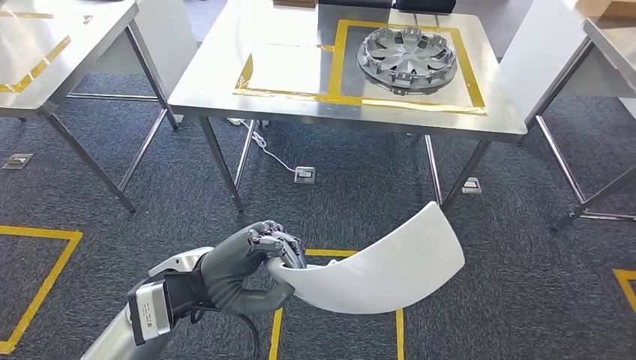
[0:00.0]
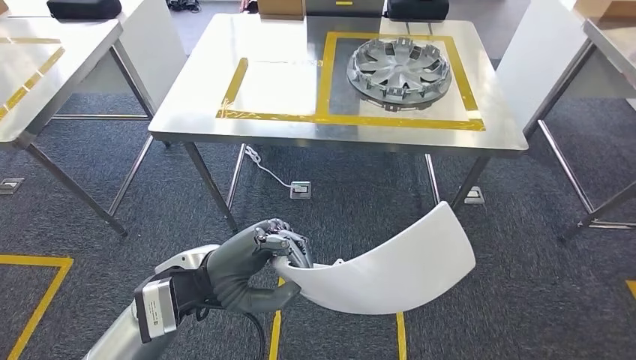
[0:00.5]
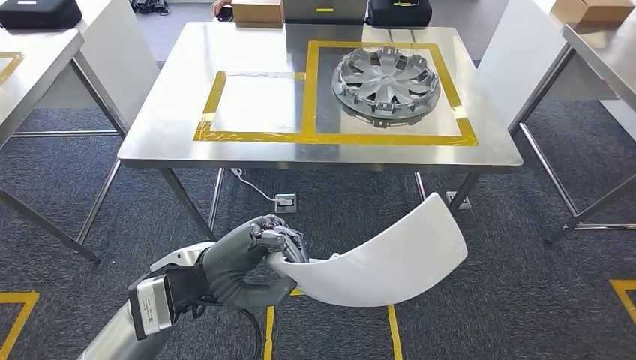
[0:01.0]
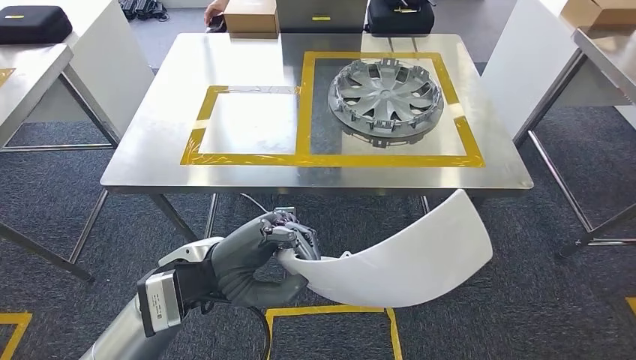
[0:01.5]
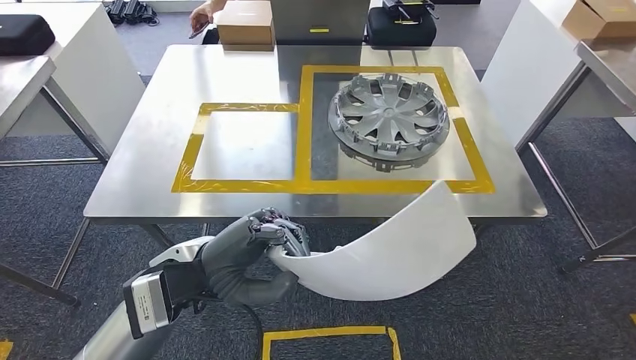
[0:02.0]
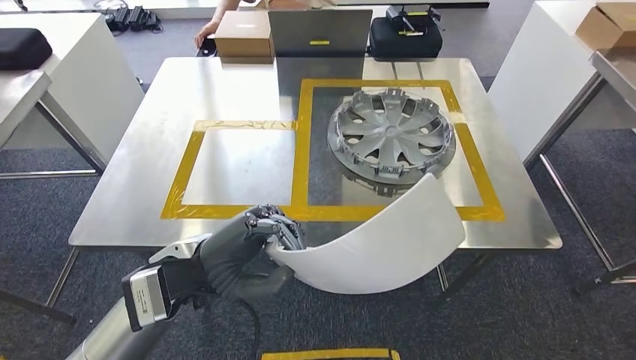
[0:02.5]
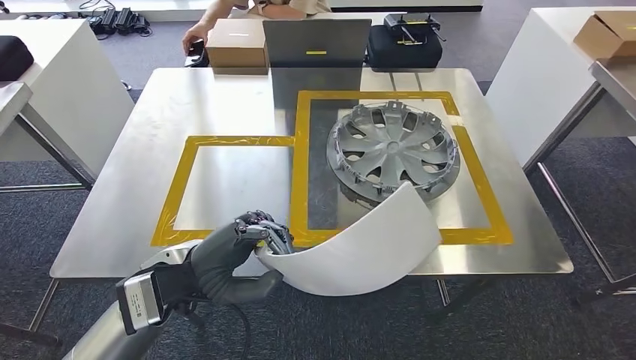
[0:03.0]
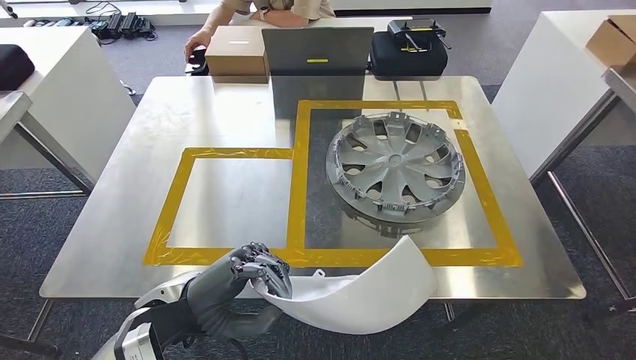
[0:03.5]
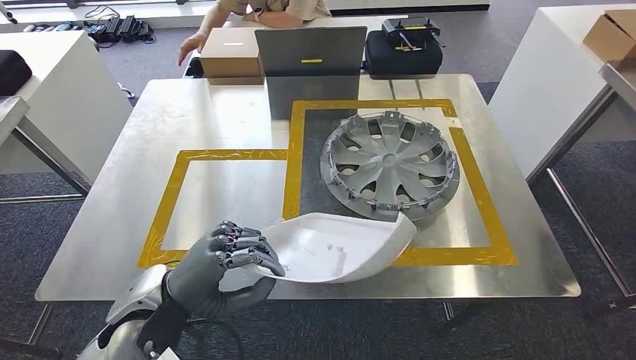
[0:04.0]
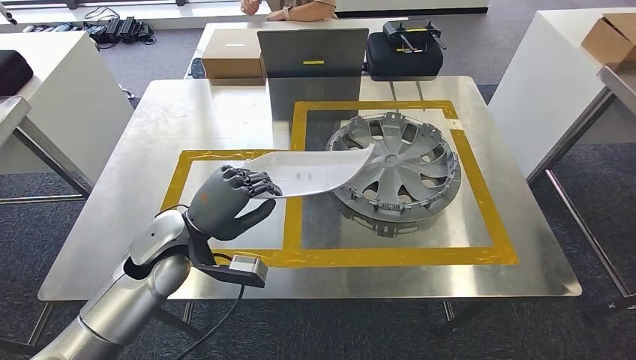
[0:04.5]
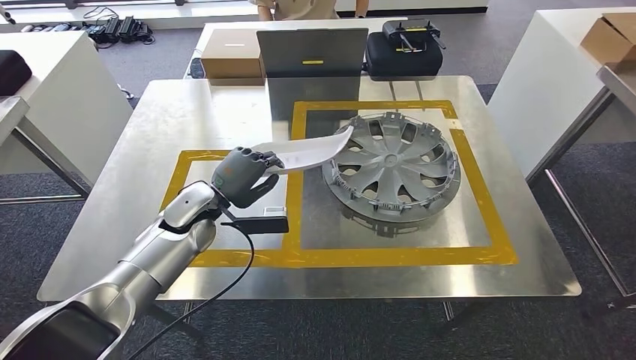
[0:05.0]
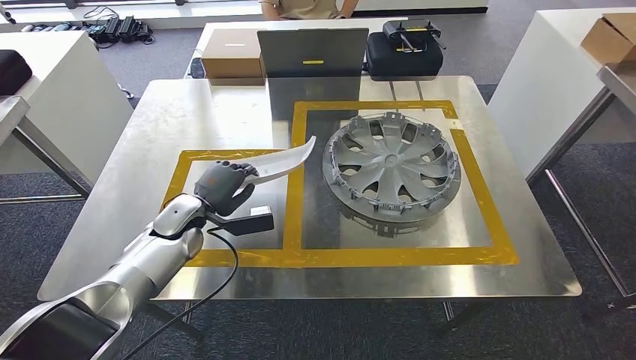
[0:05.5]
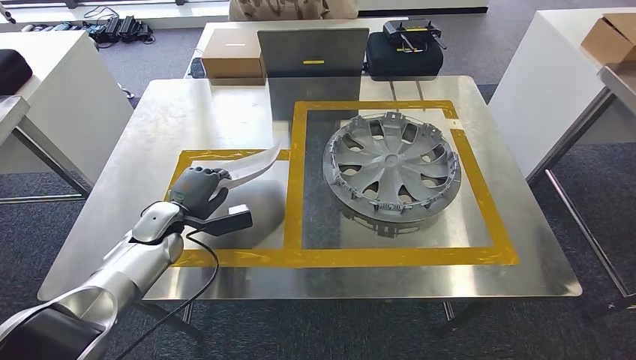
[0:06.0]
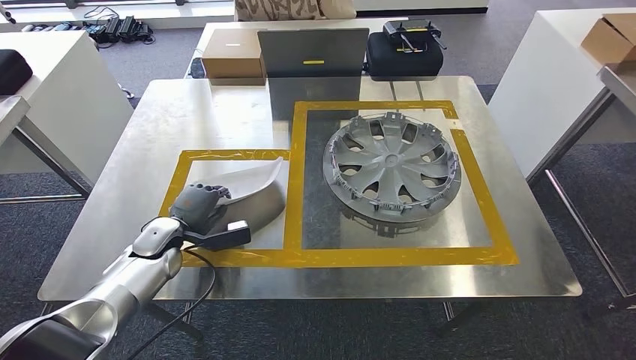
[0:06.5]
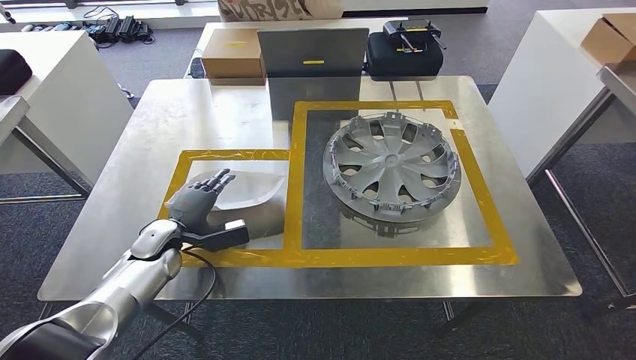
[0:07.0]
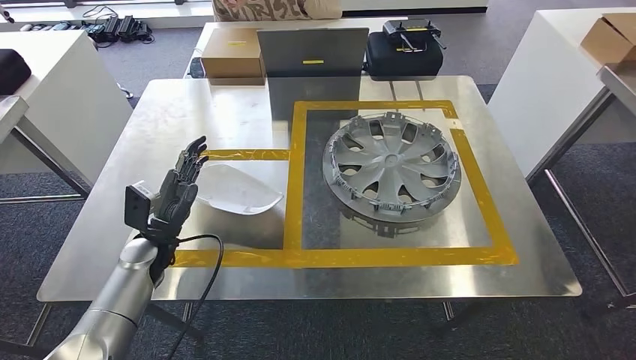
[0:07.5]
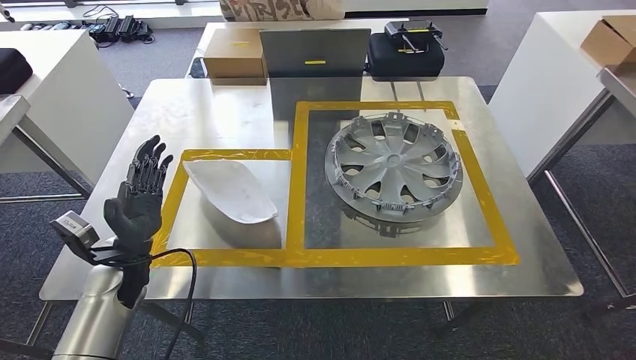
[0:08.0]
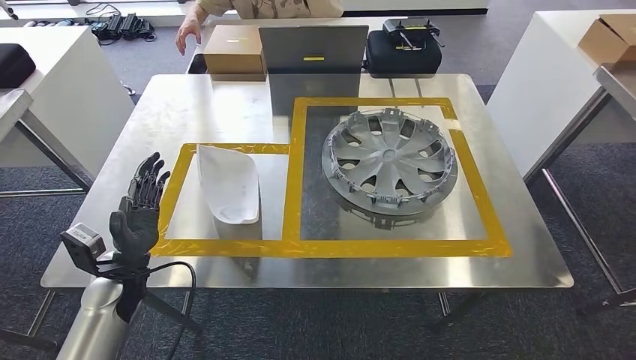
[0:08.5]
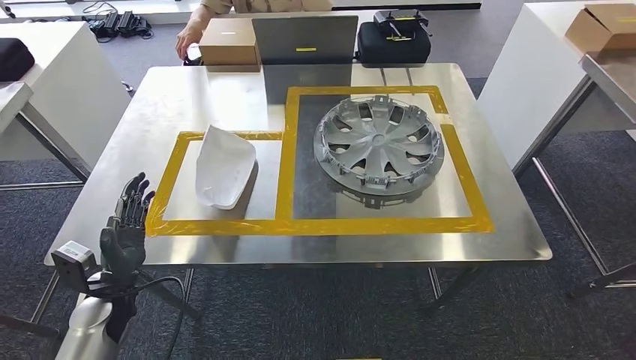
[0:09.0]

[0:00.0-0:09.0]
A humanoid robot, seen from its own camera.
Step, 0:00.0 to 0:03.5: Move the small component to the workbench.
Step, 0:04.0 to 0:08.0: Insert the small component into the corresponding slot on the workbench.
0:04.5 to 0:07.0: The left hand is displaced downward and to the left by approximately 15 cm.

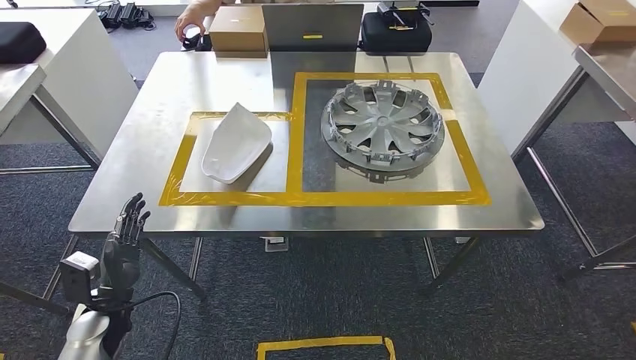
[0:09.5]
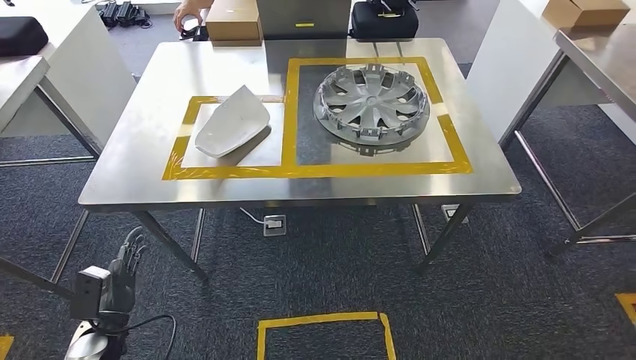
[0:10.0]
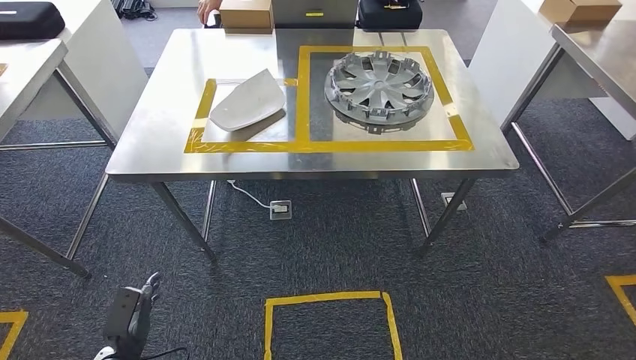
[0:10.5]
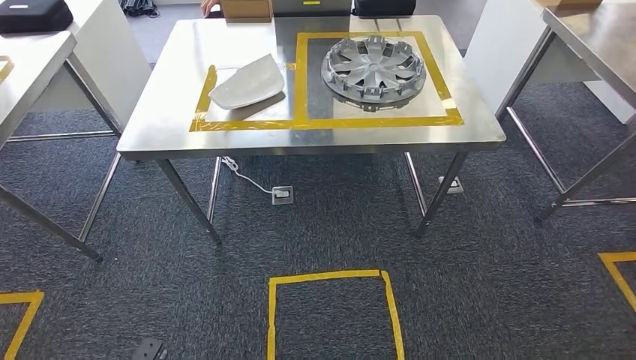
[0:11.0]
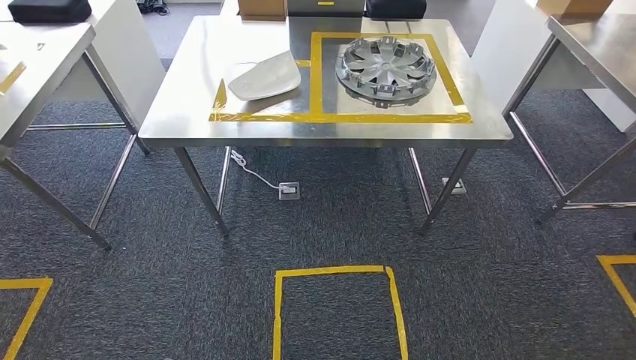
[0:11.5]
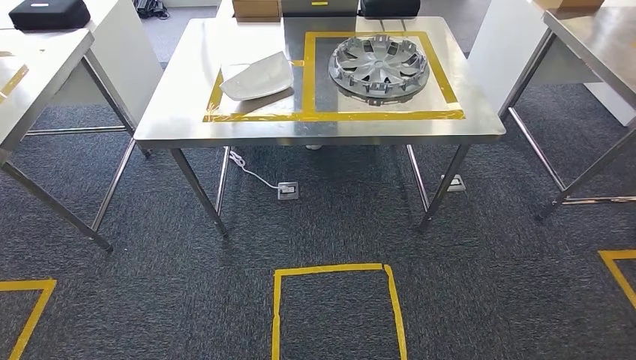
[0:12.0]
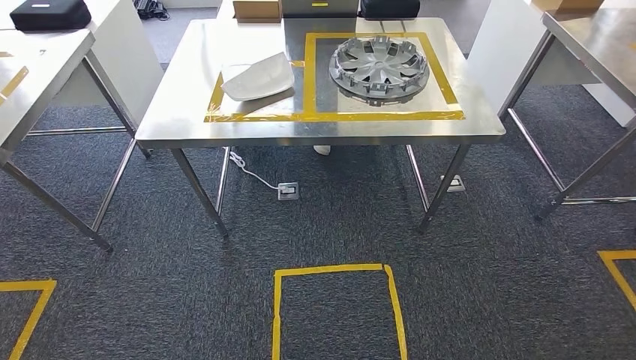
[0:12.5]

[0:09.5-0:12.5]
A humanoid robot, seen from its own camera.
Step, 0:09.5 to 0:12.5: Return to the initial position at the workbench.
0:11.0 to 0:12.5: The left hand shifts by roughly 5 cm.
